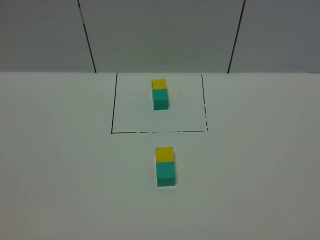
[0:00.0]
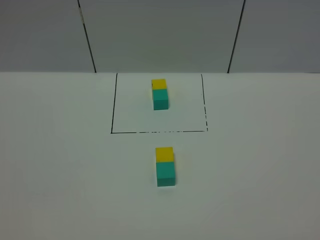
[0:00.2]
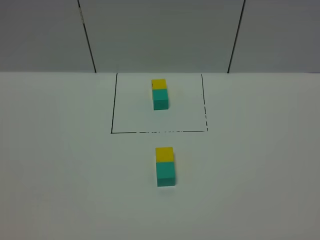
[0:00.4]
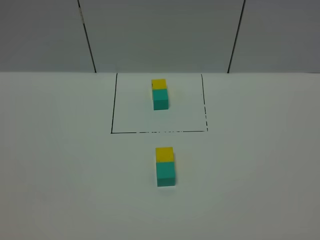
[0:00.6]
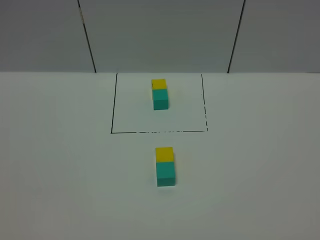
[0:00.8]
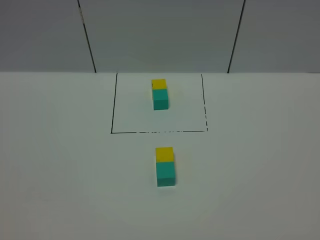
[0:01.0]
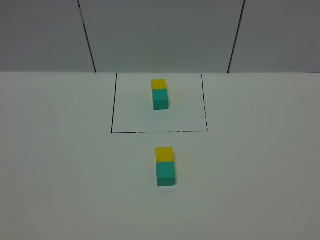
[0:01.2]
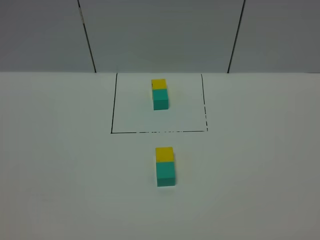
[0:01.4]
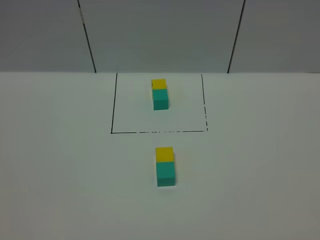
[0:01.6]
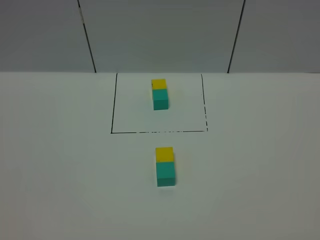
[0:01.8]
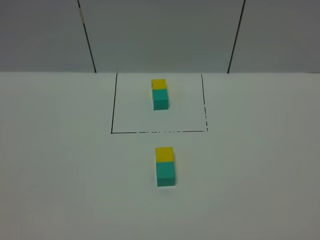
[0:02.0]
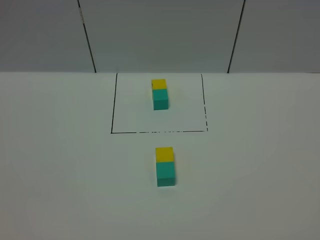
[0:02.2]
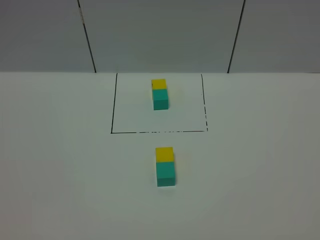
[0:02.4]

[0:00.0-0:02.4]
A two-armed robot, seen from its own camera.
Task of the whole recording: According to the building block template in front, assemble the scattered blocks together.
0:00.0 to 0:02.4: The two grippers keep their place.
